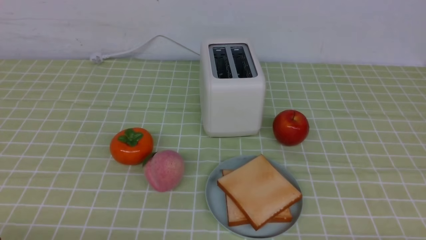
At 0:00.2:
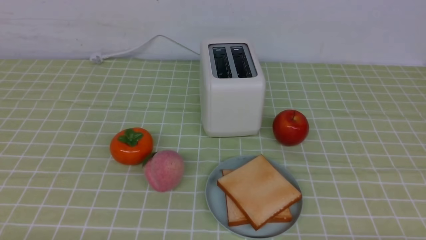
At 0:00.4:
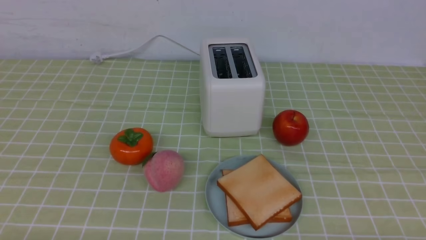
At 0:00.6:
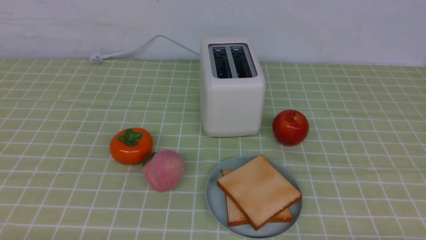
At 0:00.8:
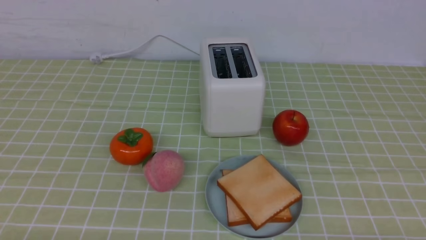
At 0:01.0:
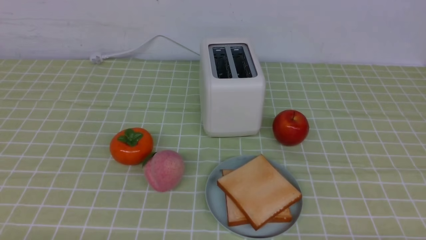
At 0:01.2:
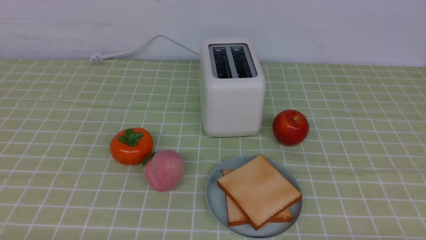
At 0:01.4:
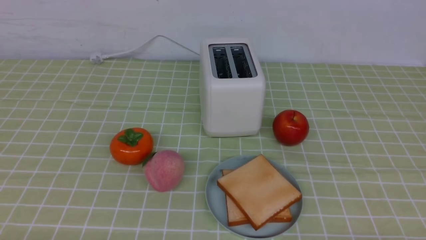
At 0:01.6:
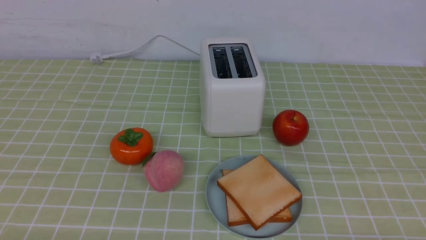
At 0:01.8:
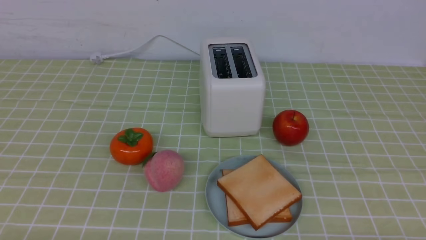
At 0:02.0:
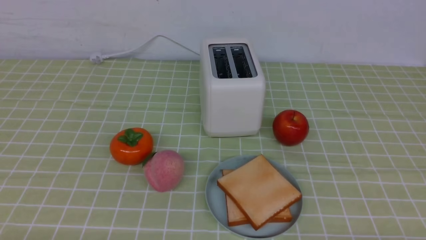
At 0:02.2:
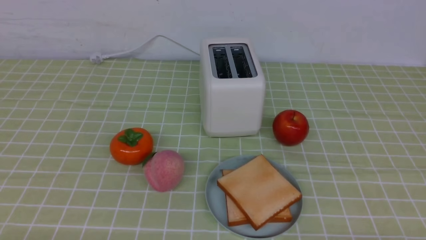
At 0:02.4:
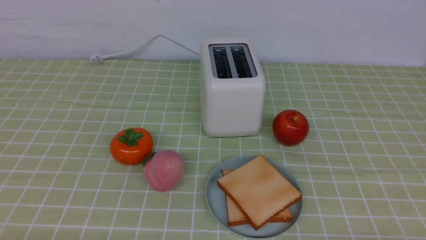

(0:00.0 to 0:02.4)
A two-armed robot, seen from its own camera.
Task of the whole recording: take toasted bread from bread machine on green coffee tablecloth place on plate.
0:01.2 - 0:02.4: Both grippers stay about where they are.
